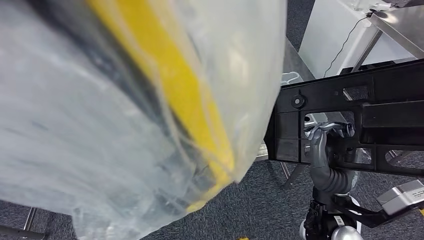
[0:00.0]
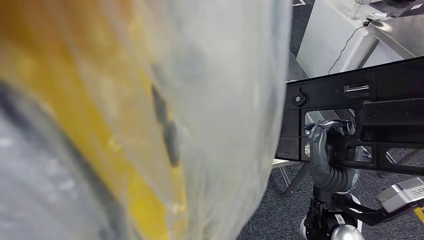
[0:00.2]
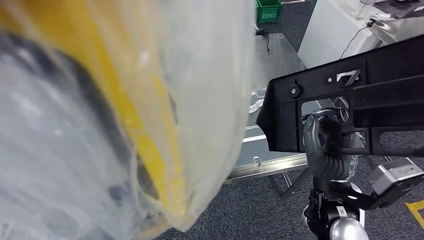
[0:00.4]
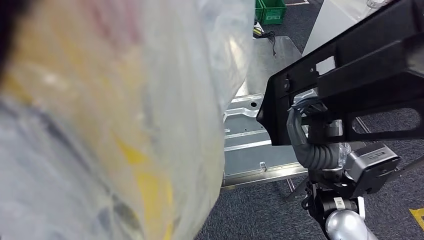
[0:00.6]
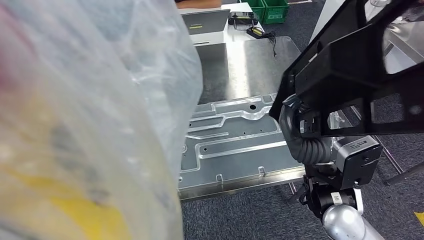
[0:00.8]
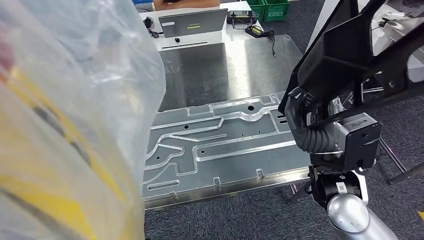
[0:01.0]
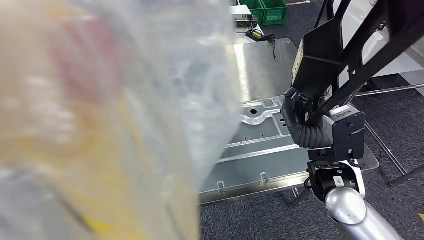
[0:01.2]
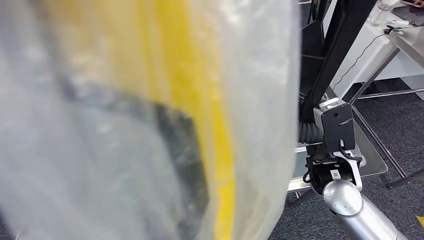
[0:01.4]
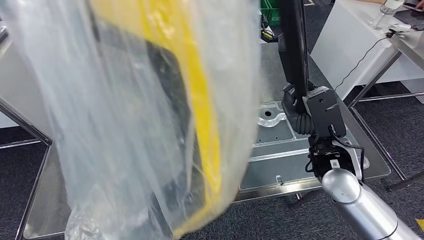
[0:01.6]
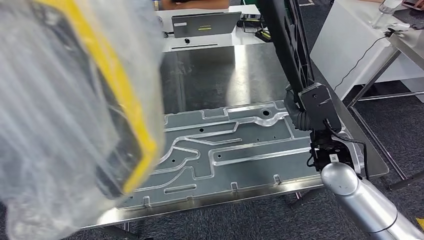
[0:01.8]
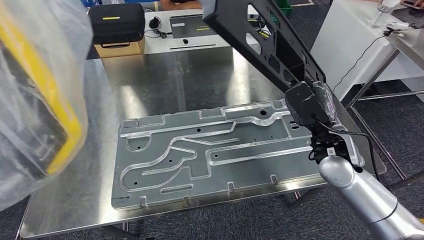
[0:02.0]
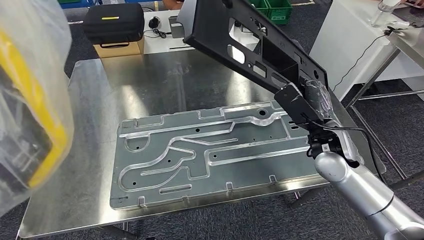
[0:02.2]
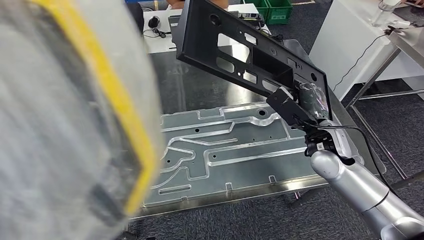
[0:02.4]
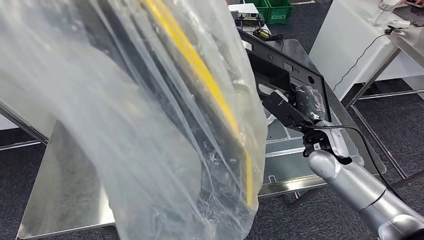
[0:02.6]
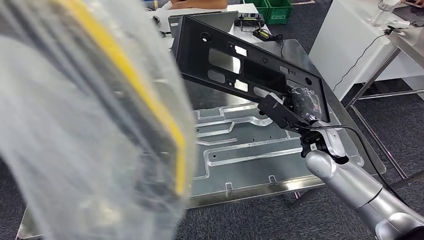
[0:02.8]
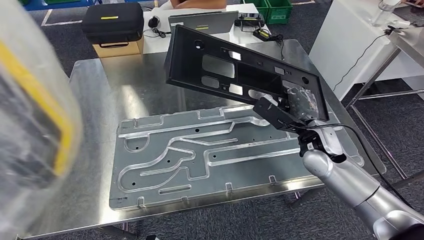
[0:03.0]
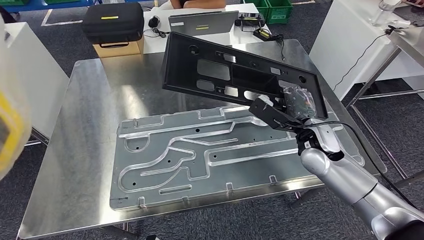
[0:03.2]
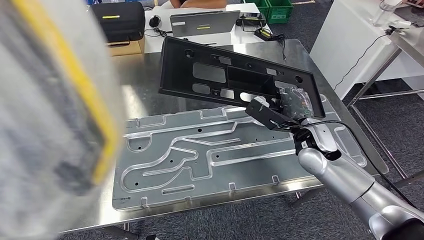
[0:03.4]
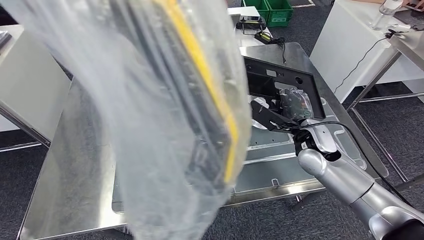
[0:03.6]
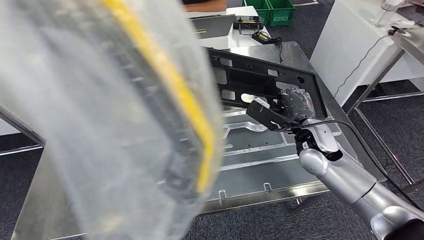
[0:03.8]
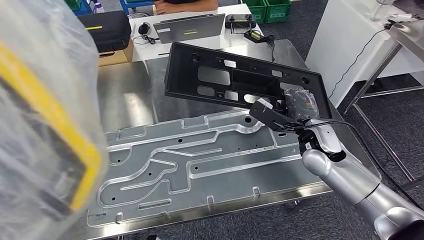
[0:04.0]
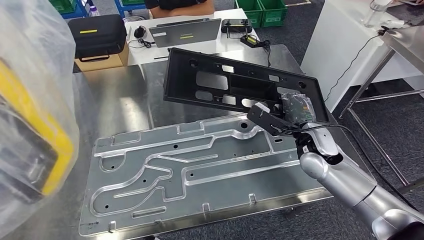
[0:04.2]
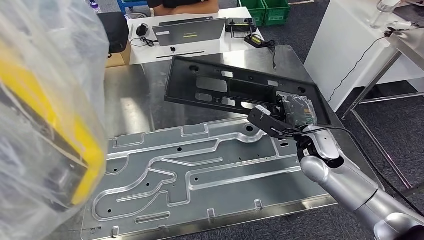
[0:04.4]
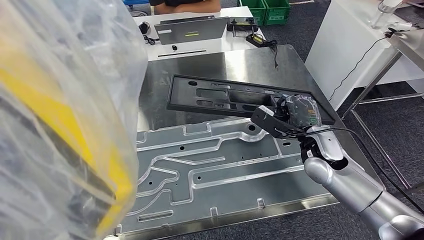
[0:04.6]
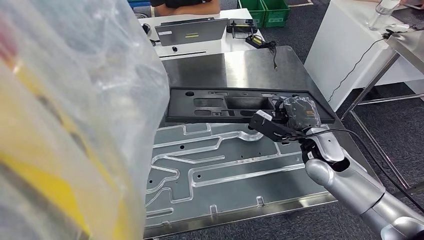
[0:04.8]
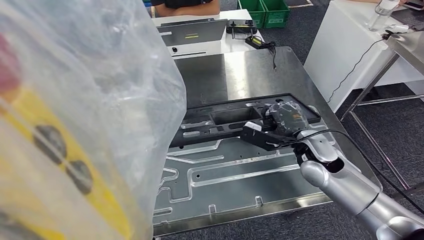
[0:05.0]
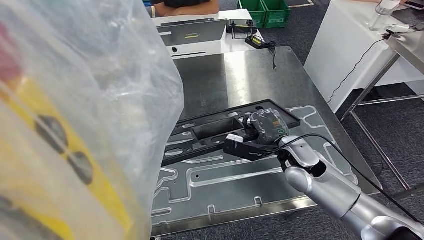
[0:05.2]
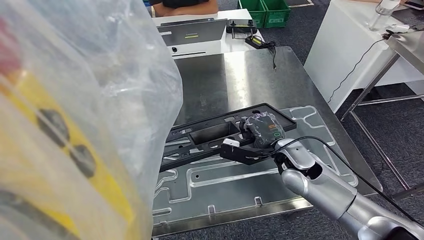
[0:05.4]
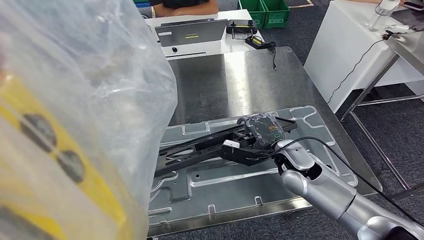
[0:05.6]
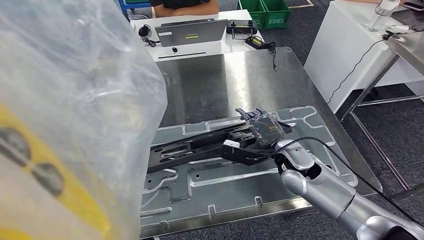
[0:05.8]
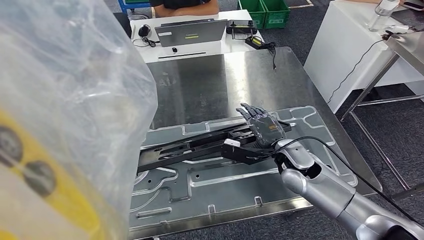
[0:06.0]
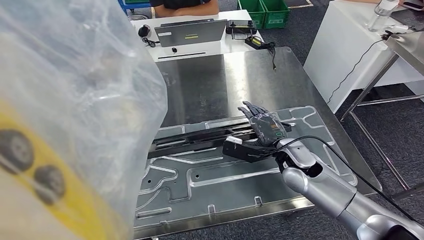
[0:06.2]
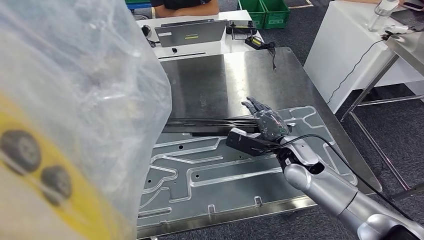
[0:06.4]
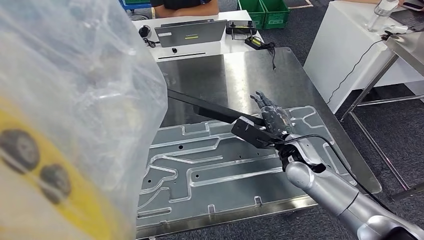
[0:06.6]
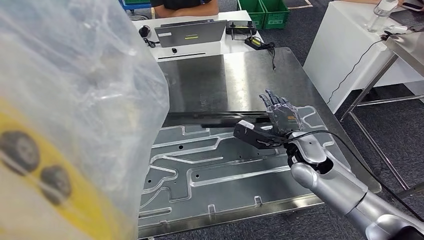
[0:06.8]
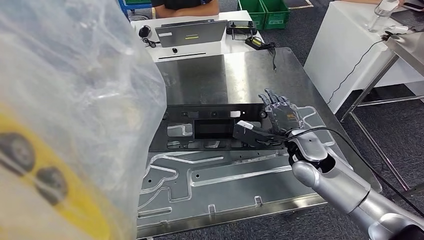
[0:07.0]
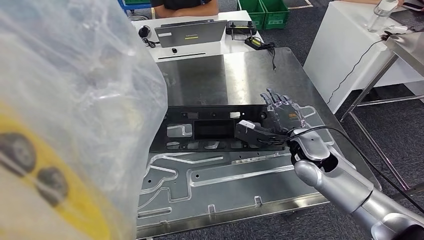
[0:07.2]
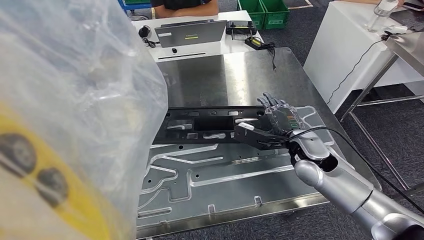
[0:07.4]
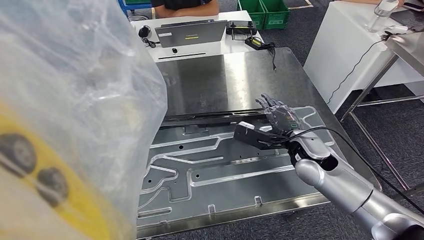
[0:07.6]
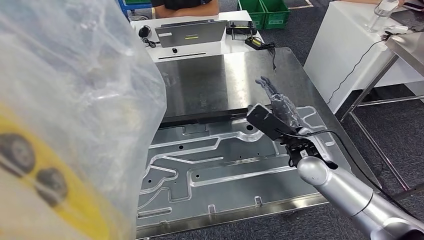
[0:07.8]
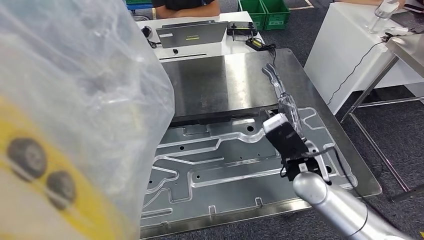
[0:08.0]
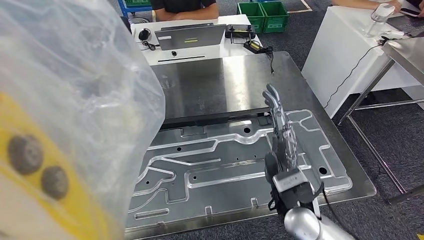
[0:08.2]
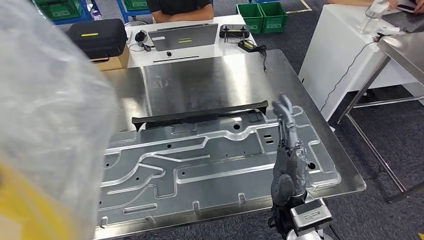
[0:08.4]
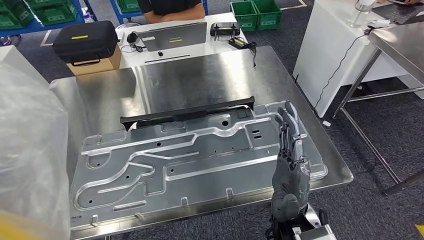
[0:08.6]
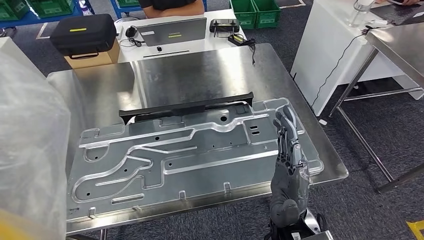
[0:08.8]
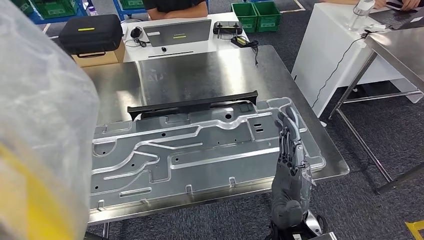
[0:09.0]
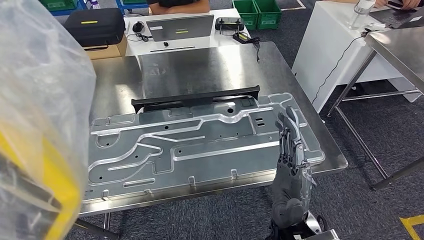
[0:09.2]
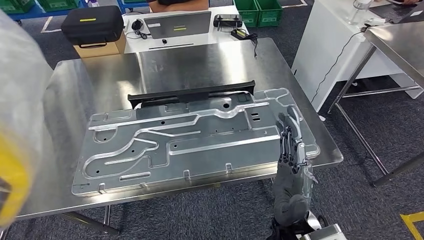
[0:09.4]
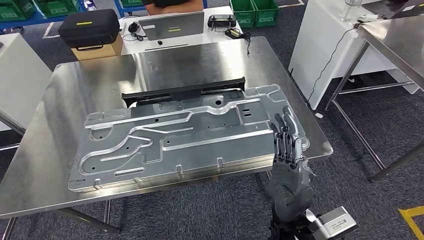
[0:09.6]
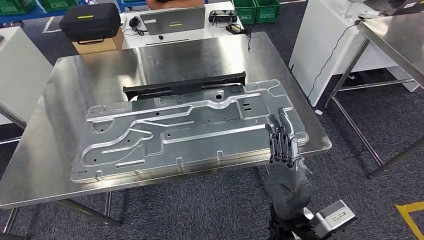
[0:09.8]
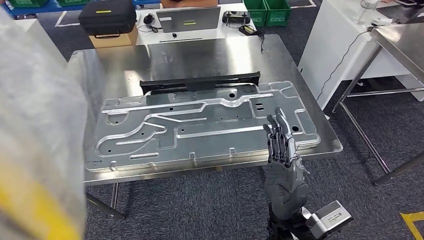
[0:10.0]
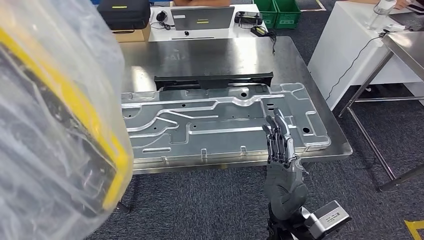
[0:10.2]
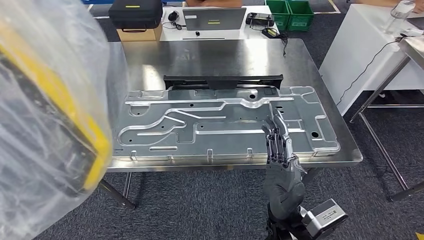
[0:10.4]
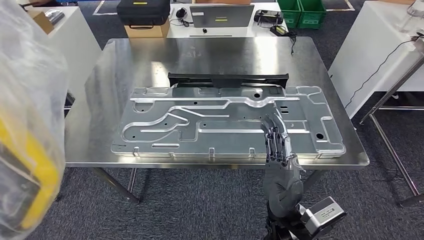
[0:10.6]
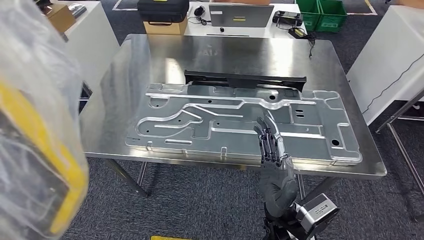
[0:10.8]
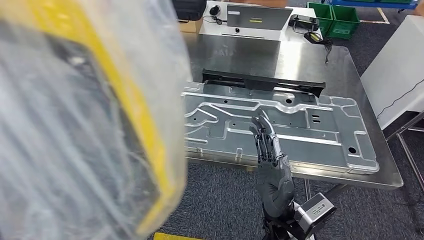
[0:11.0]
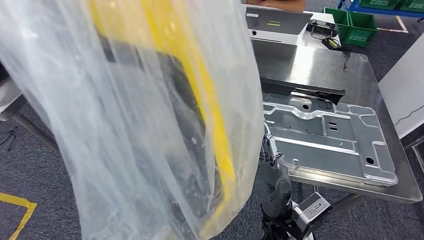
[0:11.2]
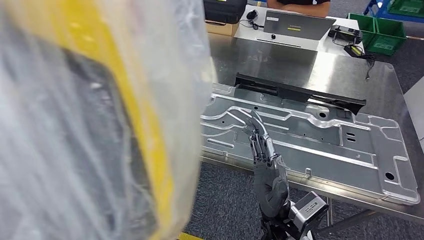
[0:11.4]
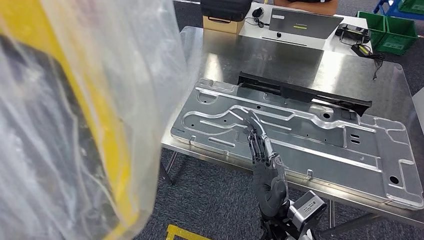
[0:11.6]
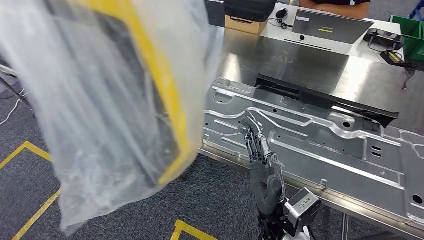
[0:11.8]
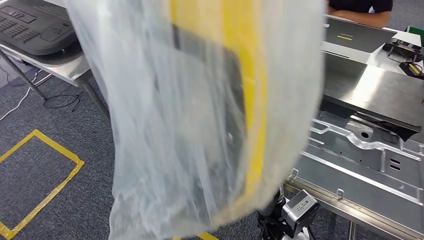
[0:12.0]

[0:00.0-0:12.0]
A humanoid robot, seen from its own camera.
Step, 0:02.0 to 0:10.6: Insert the large material into the corresponding slot on the workbench.
0:06.0 to 0:07.6: There are only small adjustments of the hands.

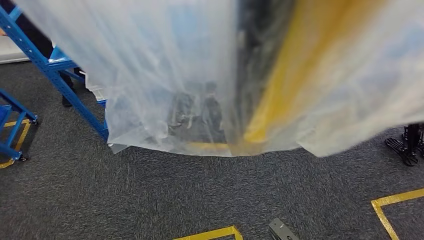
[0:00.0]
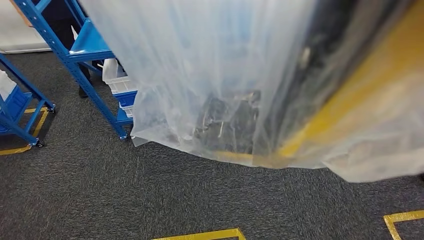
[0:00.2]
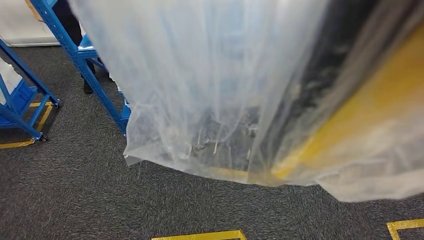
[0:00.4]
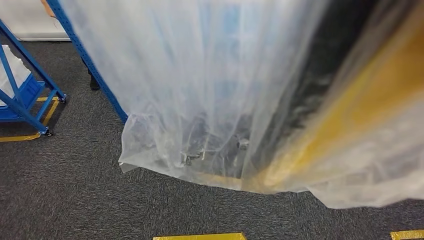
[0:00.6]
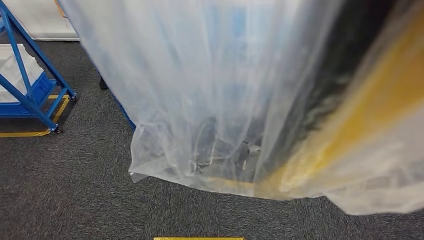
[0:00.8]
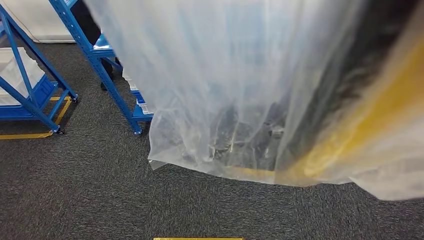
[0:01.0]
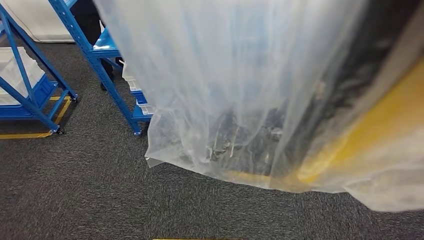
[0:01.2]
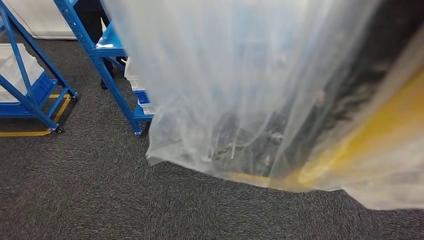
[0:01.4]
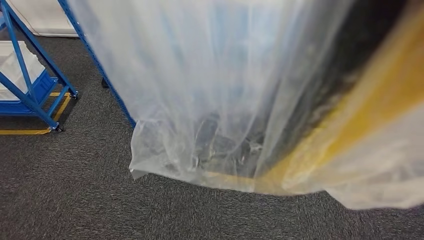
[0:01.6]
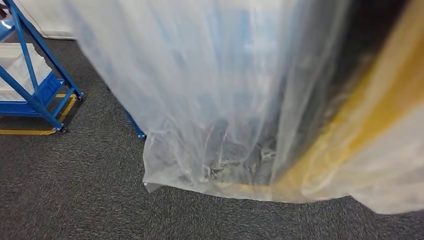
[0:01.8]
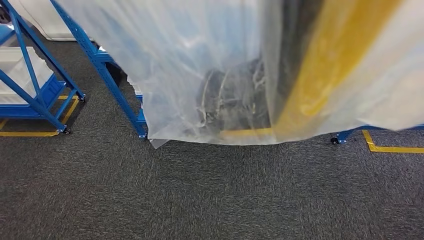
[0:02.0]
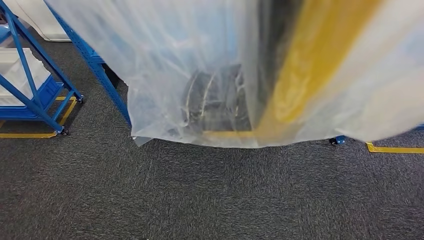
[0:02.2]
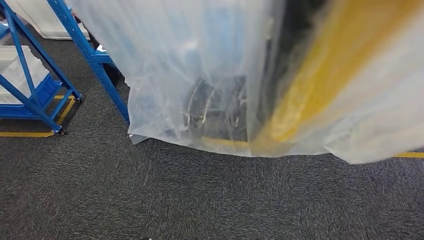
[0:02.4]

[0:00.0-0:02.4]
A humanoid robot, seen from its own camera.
Step, 0:00.0 to 0:02.4: Move to the initial position of the shelf.
